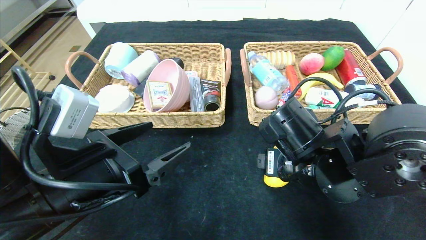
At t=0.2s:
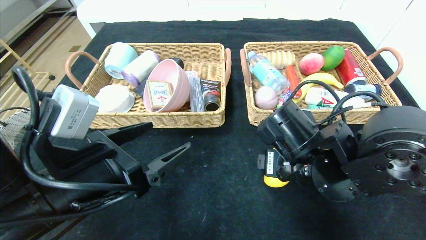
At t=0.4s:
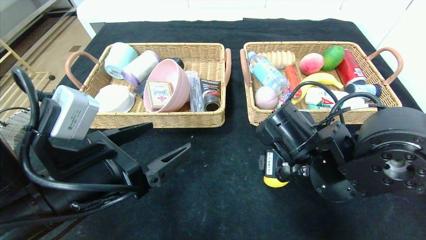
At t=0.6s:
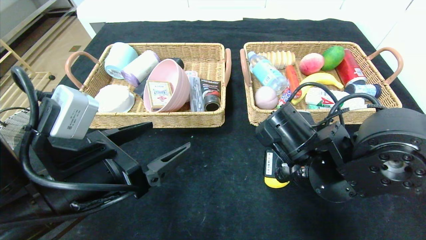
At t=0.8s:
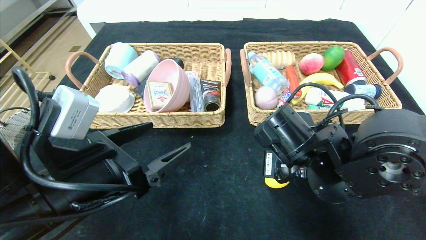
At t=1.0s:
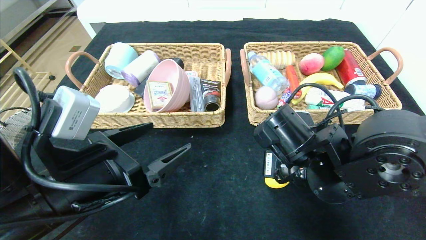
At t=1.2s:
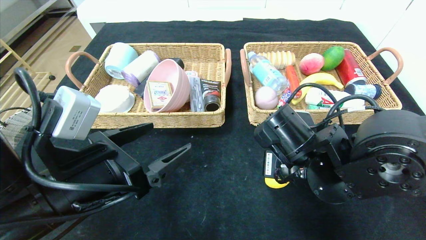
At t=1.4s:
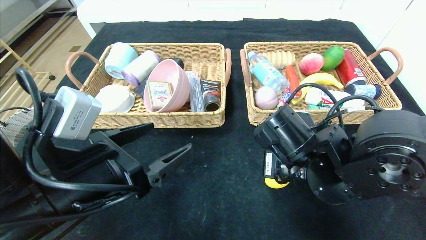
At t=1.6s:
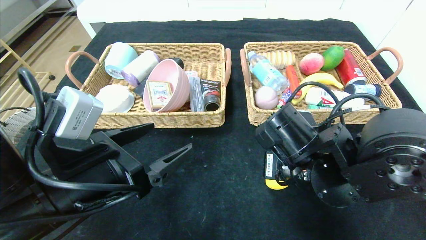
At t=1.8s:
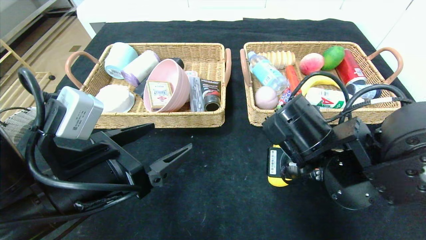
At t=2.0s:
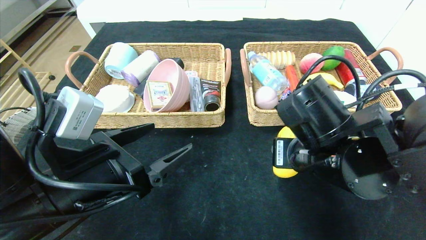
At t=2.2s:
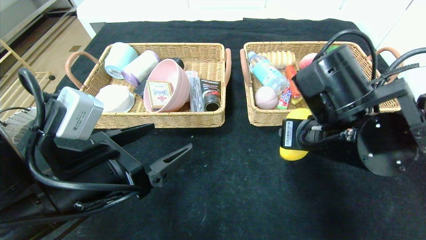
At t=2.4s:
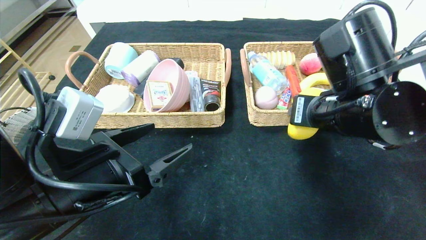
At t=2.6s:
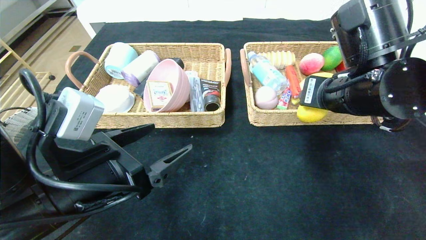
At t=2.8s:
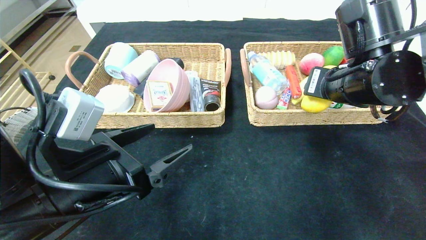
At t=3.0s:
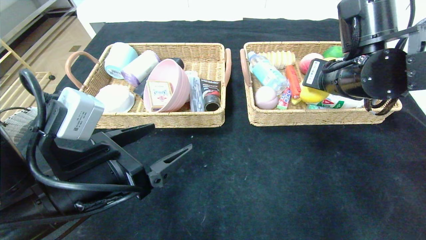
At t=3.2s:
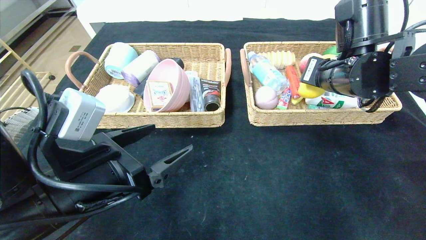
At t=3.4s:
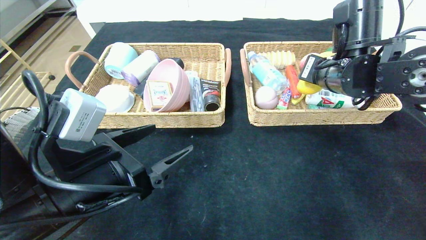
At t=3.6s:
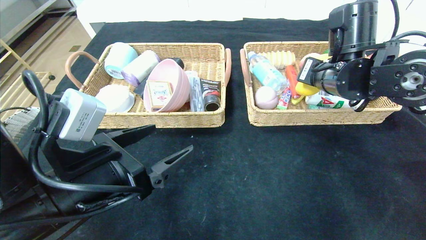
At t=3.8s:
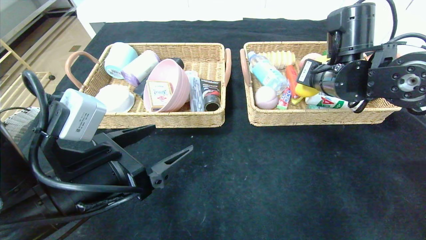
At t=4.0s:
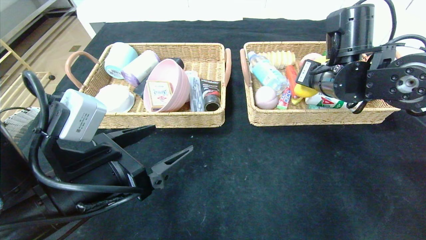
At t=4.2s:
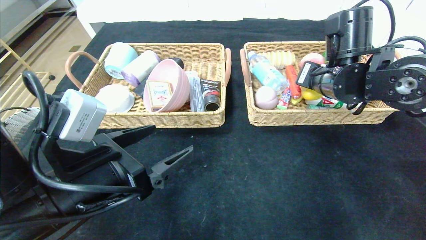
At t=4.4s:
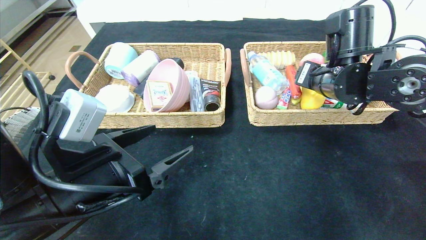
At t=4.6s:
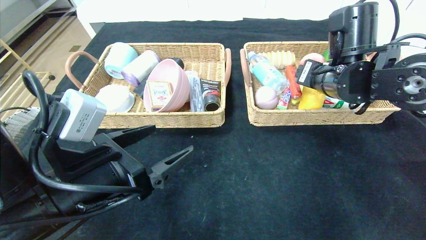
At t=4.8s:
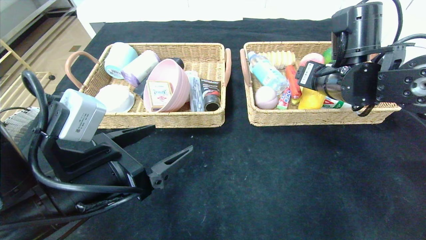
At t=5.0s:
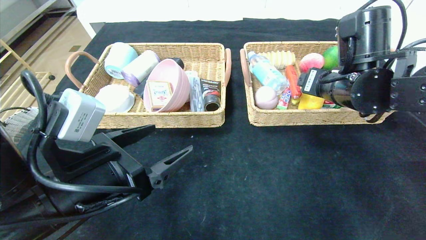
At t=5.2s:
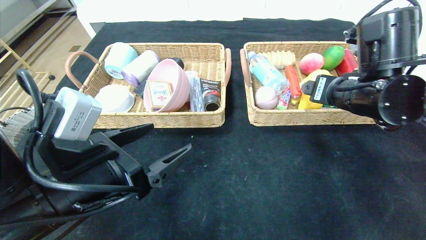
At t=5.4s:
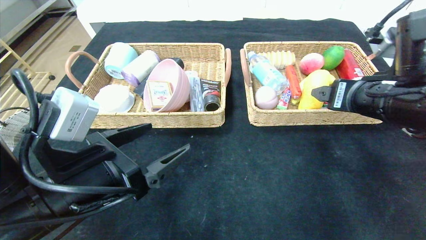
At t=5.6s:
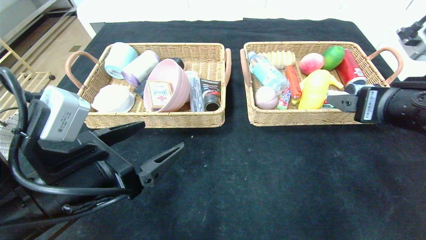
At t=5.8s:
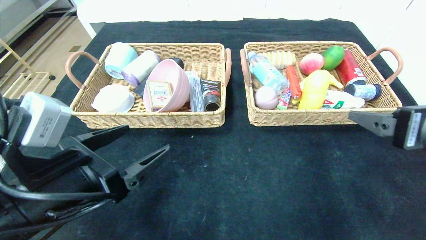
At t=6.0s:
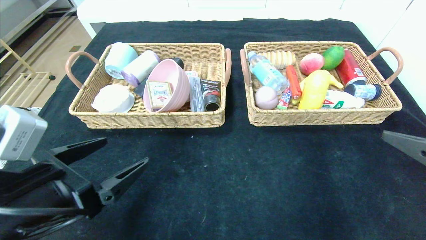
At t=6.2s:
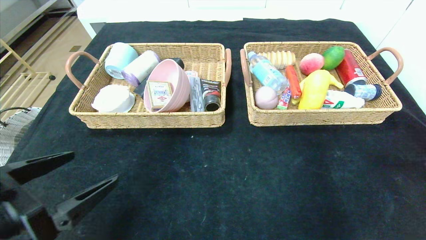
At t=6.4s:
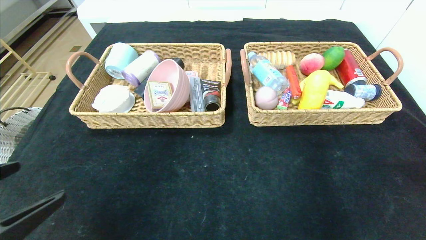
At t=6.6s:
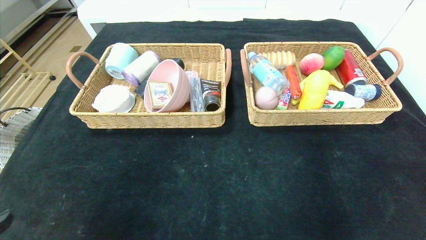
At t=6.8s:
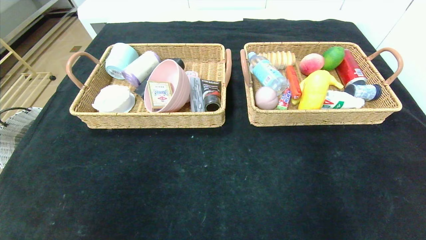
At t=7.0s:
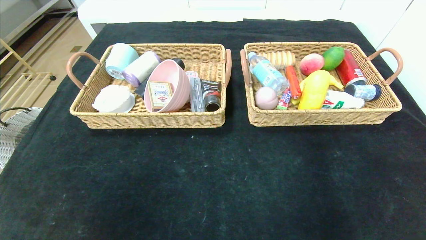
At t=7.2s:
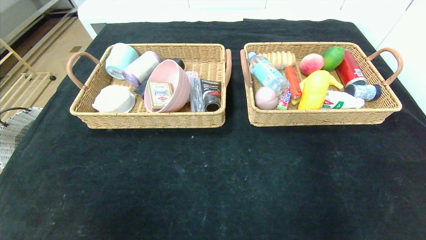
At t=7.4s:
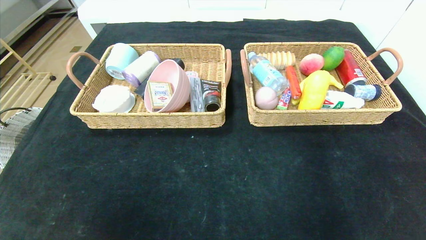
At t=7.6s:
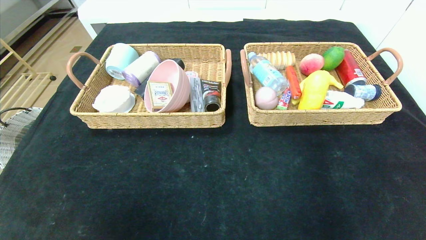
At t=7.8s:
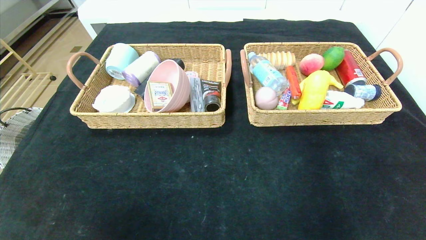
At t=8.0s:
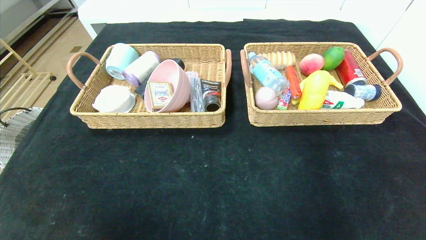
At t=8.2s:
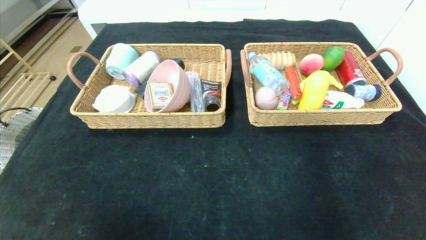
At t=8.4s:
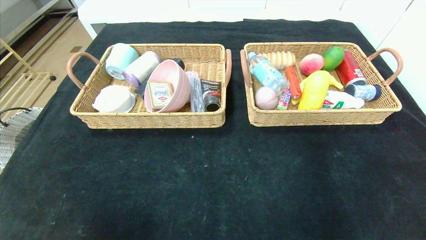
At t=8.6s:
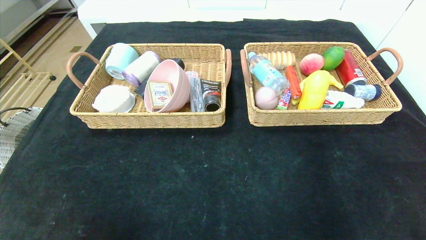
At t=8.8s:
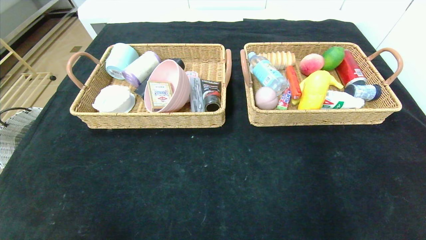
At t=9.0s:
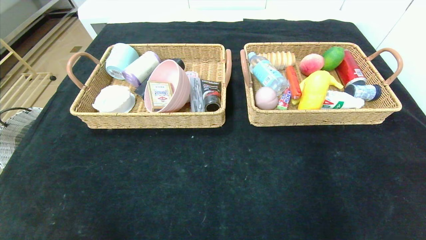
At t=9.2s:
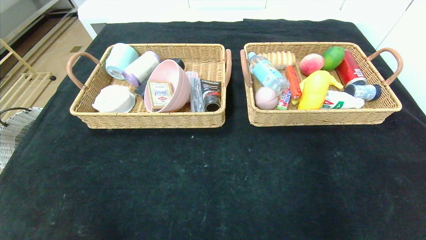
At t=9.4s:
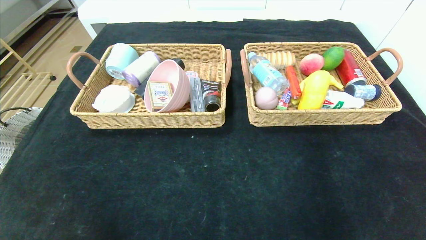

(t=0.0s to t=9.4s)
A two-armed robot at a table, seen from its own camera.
Step, t=0.0s - t=4.2s: Grasp the mango and put it in the right basket.
t=0.0s - t=1.6s: The right gripper closes up.
t=1.6s - t=3.2s: The right gripper goes approximately 15 cm upward, forward and to the right.
t=3.2s - t=4.8s: The right gripper opens.
t=4.8s - t=6.2s: The right gripper goes some 30 cm backward and to the right. Meanwhile the left gripper shifts approximately 10 cm to the left and backward.
t=6.2s - t=7.8s: The right gripper moves backward and downward, approximately 20 cm. The left gripper travels backward by approximately 20 cm.

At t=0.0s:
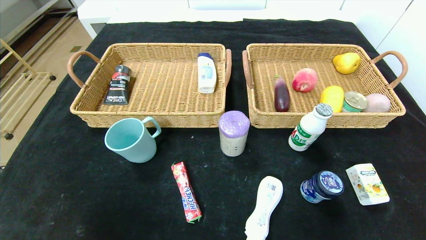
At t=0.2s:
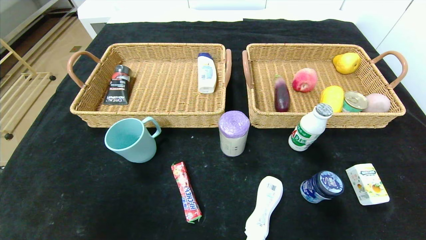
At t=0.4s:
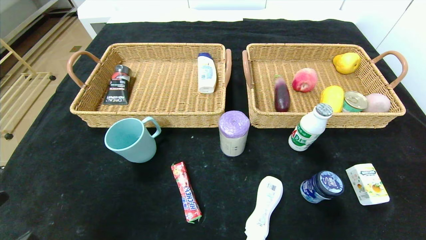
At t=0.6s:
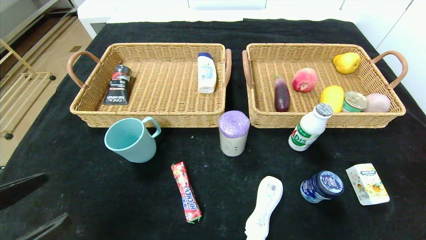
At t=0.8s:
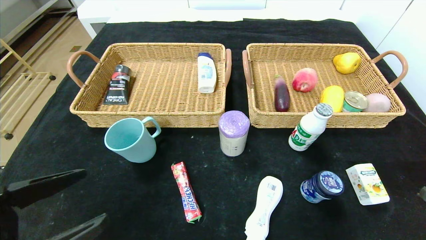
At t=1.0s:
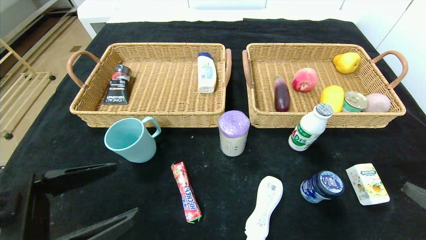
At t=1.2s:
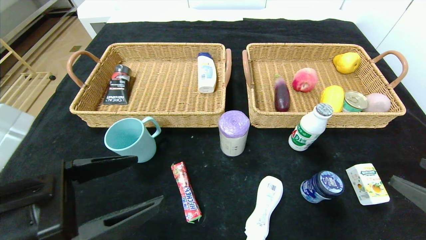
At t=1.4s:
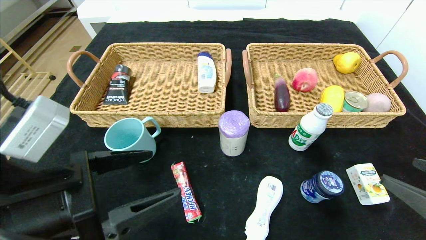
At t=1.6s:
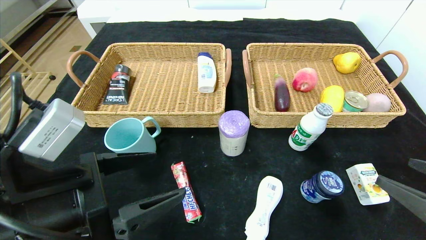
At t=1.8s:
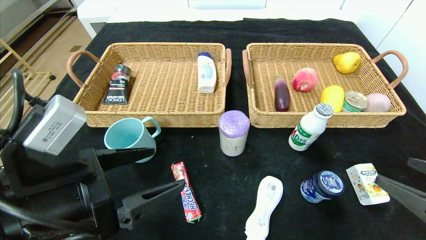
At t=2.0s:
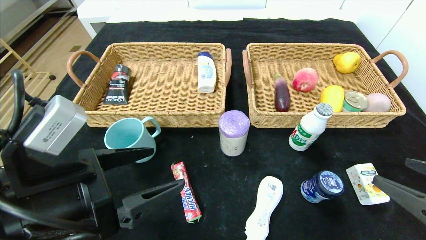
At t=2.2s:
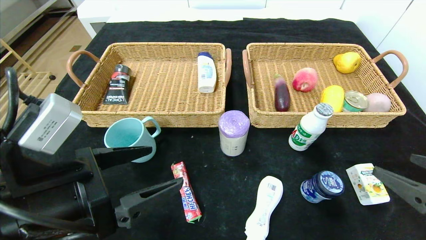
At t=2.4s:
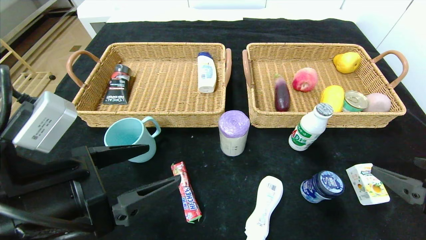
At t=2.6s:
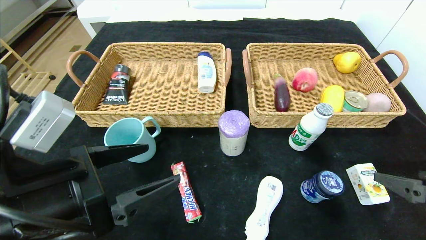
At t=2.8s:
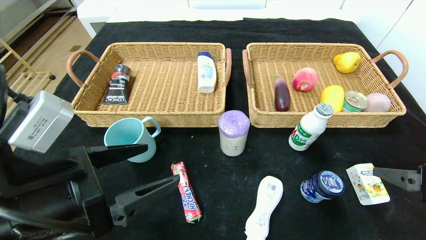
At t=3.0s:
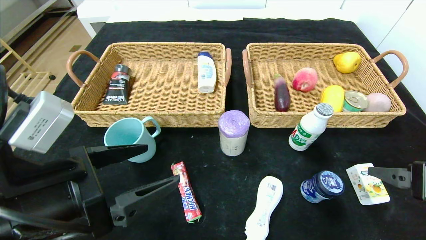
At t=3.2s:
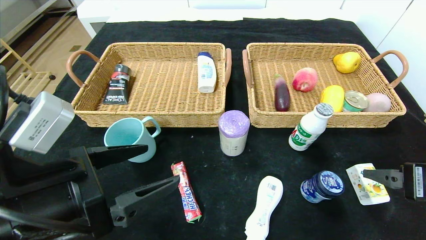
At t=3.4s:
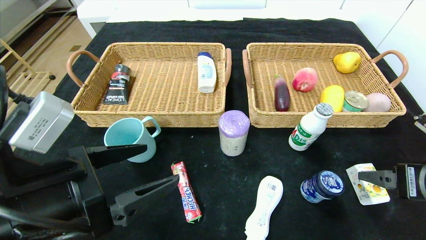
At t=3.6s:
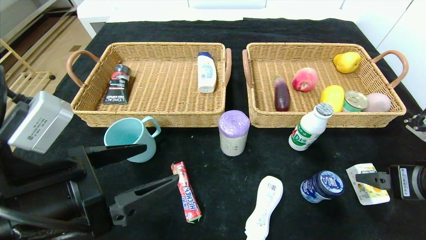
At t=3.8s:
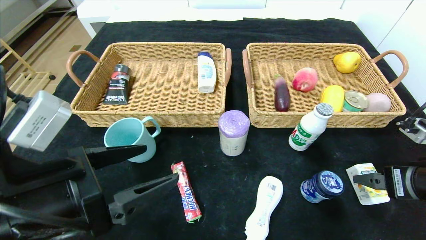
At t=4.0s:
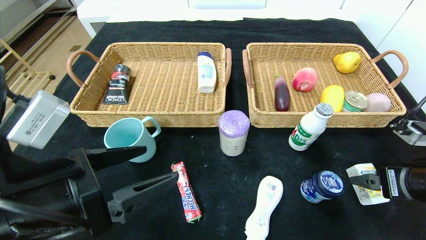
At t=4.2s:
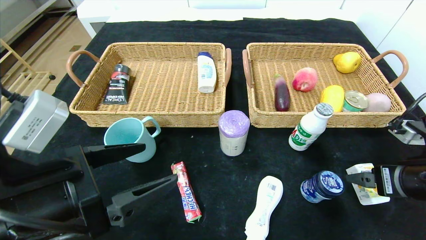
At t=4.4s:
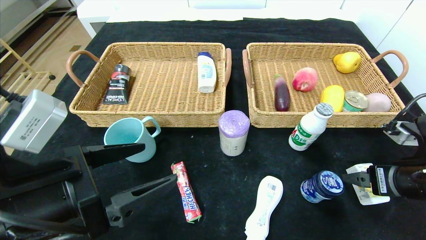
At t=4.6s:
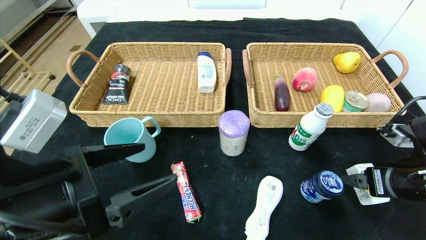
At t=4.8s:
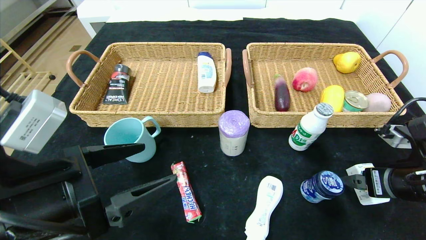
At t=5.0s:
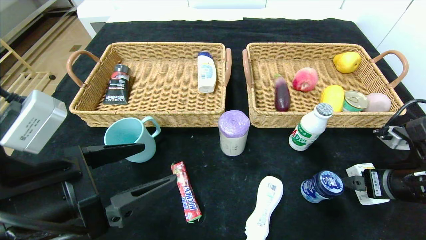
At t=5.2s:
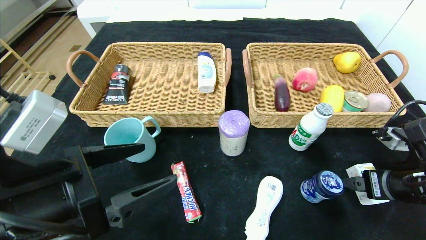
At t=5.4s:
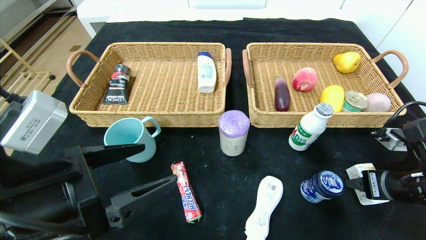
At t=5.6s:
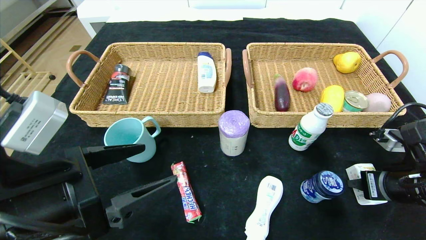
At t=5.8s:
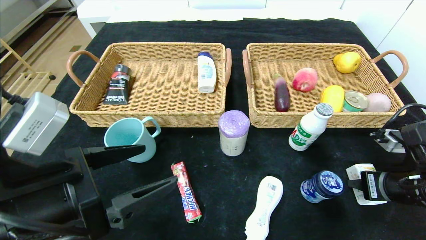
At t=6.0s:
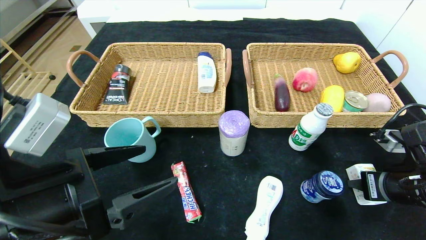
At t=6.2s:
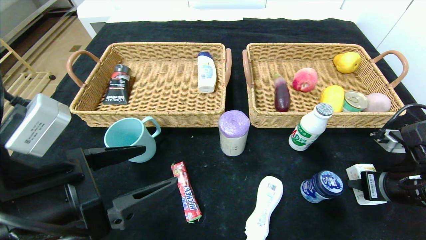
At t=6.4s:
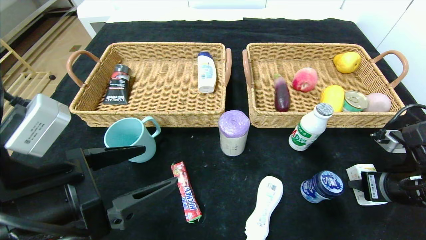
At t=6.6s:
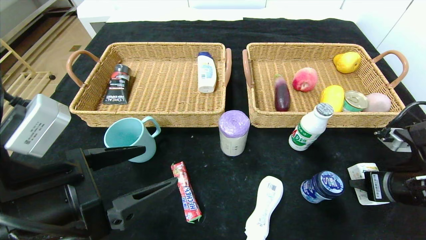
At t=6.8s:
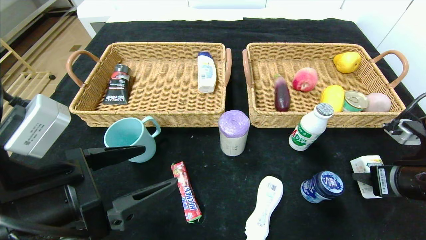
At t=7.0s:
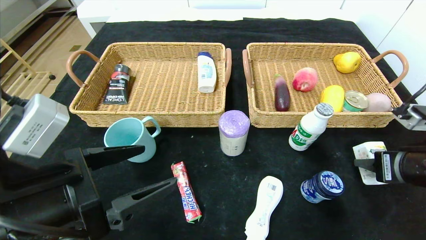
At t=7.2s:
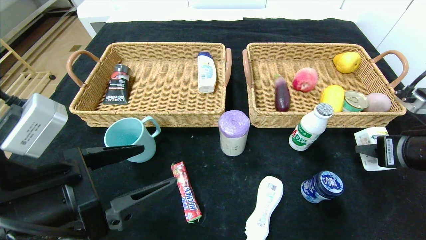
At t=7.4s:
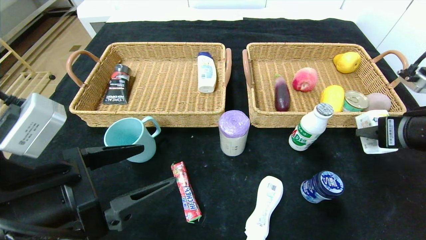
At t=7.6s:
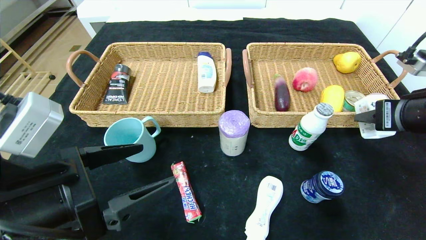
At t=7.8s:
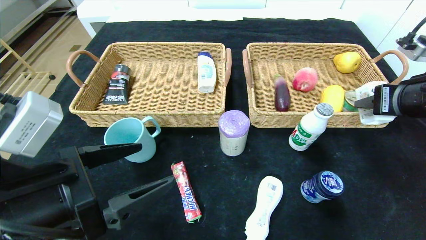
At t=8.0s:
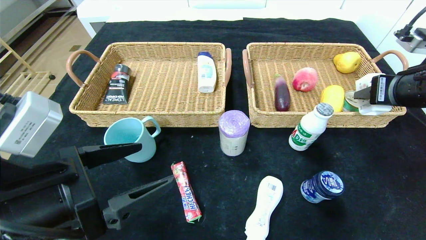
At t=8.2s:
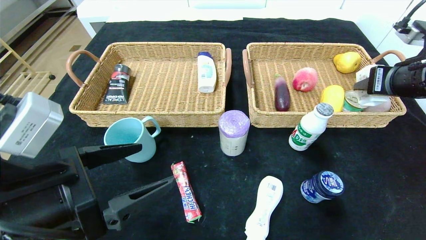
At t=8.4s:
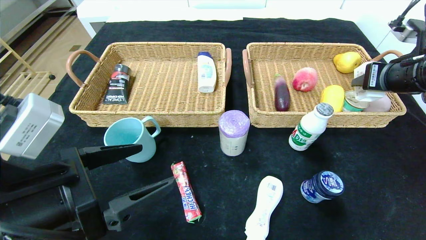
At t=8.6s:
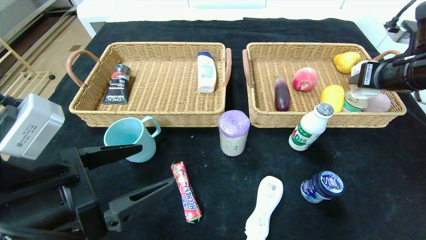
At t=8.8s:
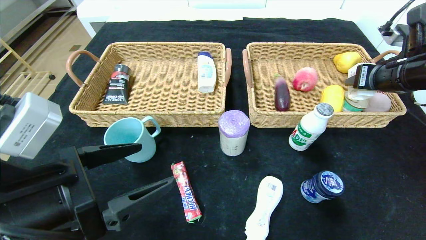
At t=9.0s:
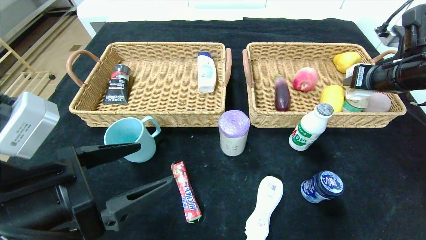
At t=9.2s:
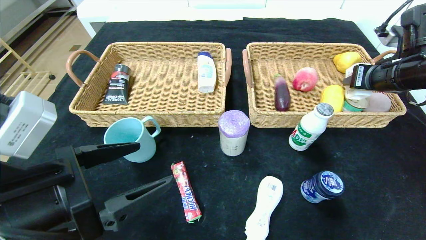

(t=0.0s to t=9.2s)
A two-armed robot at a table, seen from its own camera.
t=0.0s - t=1.6s: The right gripper shifts approximately 15 cm forward and upward; the left gripper is displaced forward, to the right and upward by some 20 cm.
t=1.6s - t=3.0s: The right gripper goes roughly 5 cm forward.
t=3.0s - t=4.6s: The right gripper shifts approximately 5 cm forward.
t=4.6s - t=6.2s: The right gripper closes up.
t=6.2s - t=7.6s: The right gripper shifts roughly 10 cm upward.
t=7.6s - t=9.2s: The right gripper travels forward by some 10 cm.
